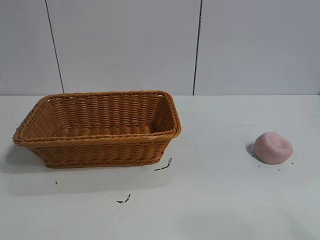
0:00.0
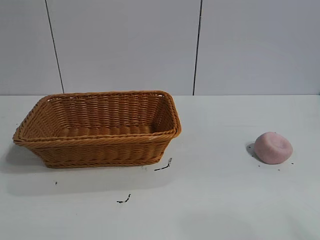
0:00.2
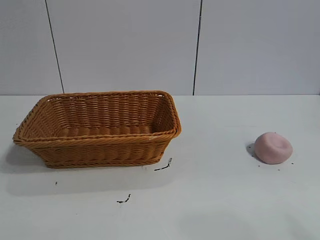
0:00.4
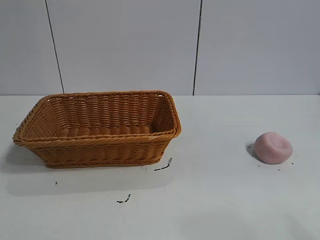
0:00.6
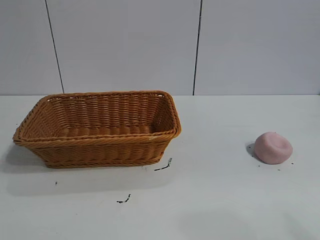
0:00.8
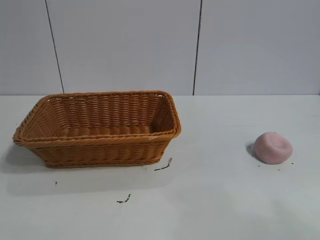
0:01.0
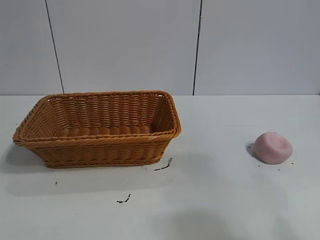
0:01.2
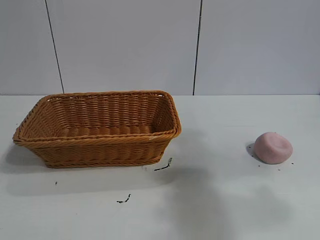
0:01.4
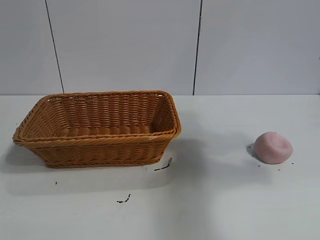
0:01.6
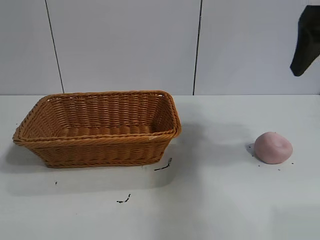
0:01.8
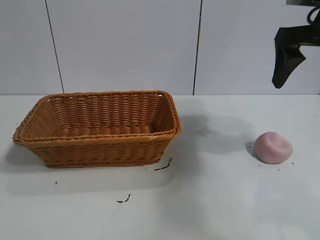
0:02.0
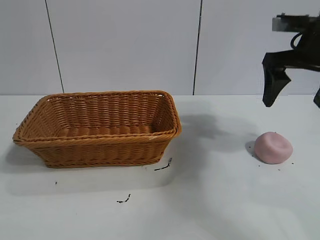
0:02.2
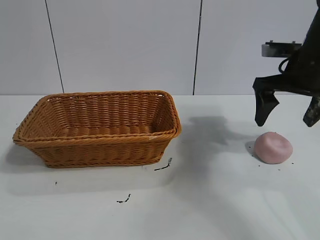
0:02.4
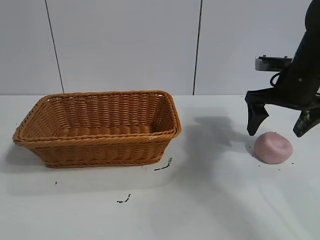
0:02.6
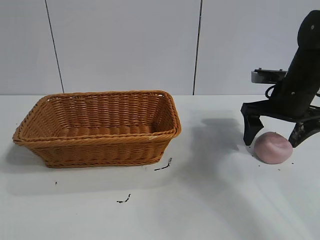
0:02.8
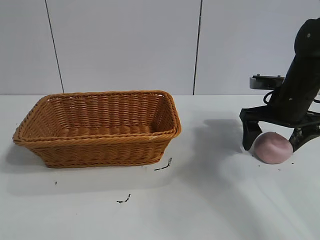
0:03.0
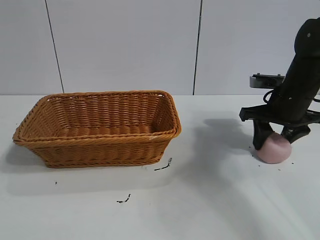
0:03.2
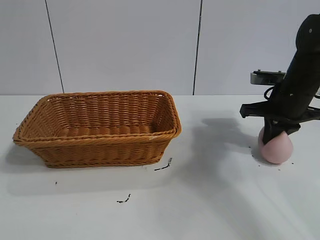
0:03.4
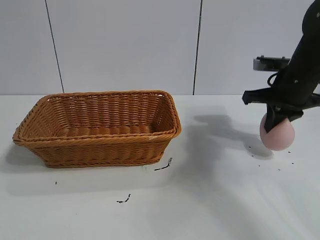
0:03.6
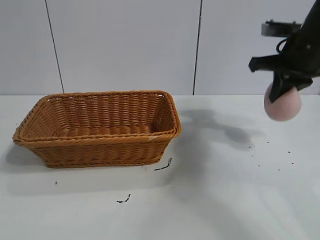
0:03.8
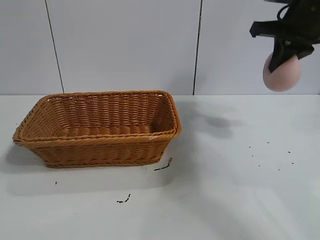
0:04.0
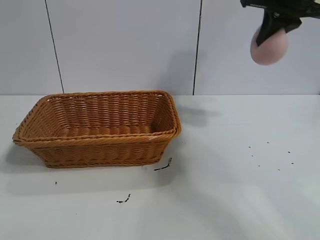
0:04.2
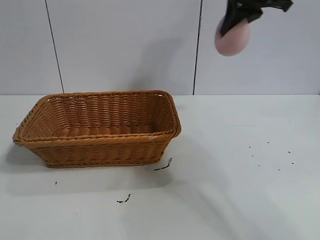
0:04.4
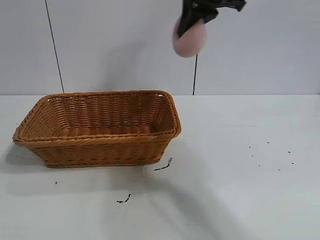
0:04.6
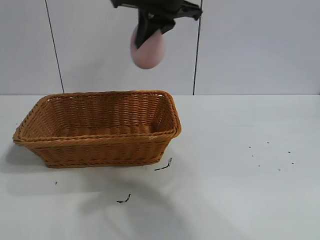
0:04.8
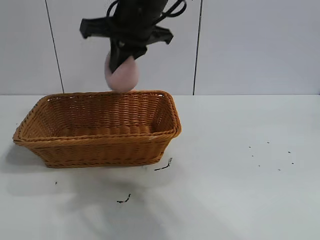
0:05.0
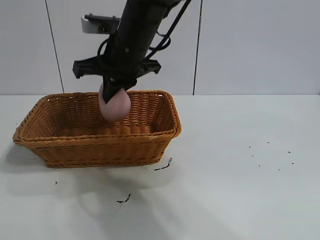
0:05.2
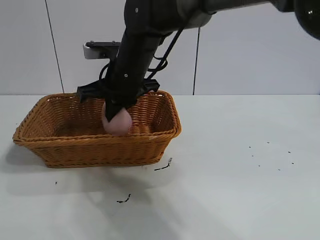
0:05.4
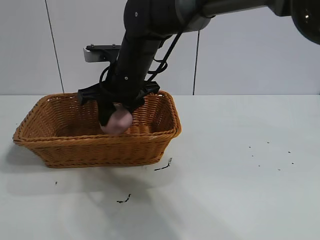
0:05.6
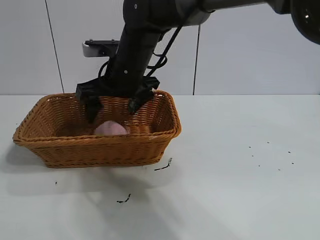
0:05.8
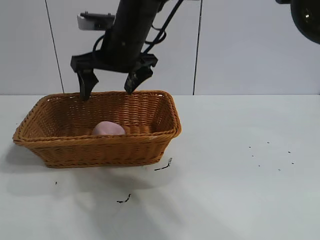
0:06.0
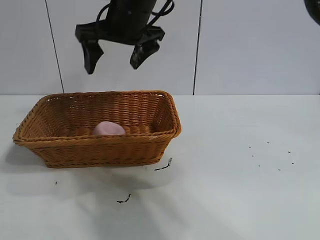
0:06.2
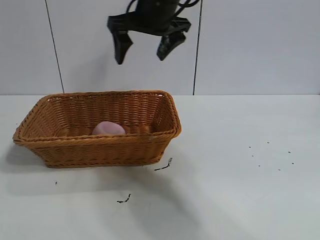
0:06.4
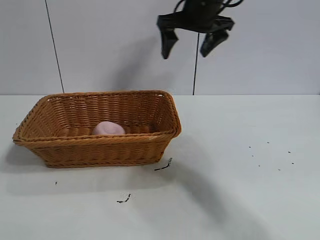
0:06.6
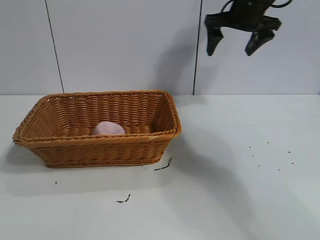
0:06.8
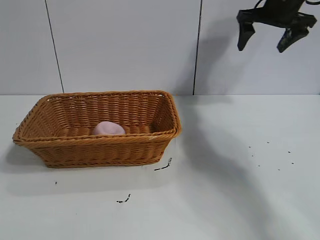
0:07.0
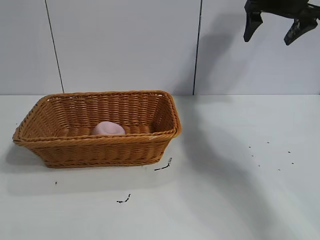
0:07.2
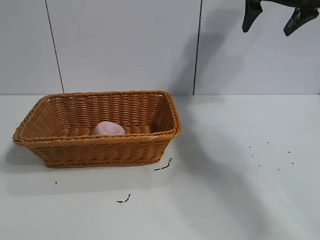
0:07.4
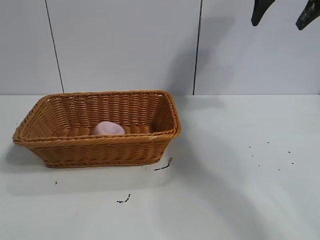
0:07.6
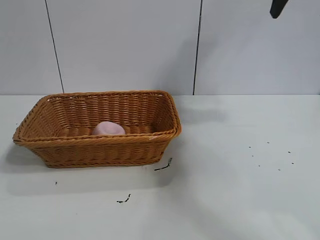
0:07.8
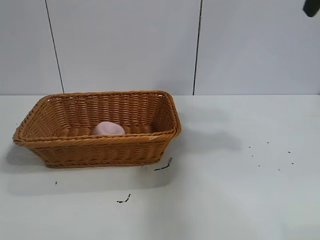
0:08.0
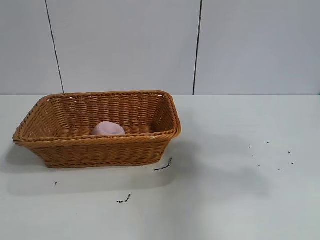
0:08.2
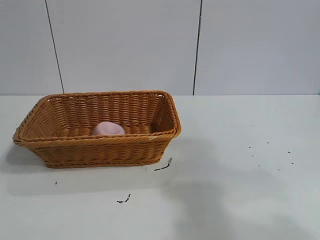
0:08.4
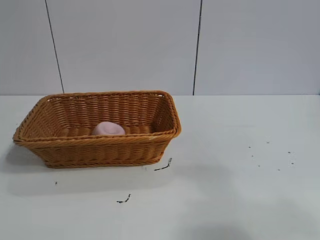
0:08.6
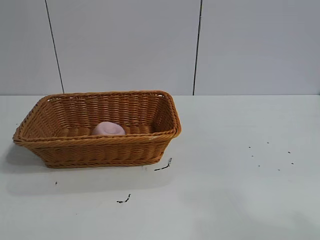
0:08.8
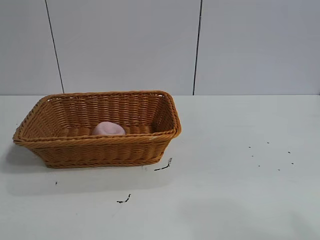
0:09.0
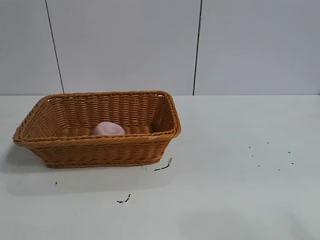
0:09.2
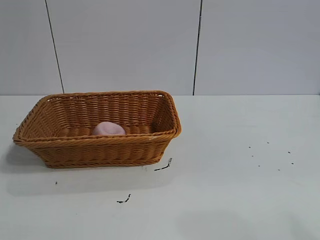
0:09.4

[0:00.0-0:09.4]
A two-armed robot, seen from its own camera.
Task of the whole recording: pick up the peach and put it into the basket.
Step, 0:00.8 to 0:03.2: Grasp the peach with right gripper.
Step, 0:03.6 to 0:05.6: Place the peach in the basket with right gripper.

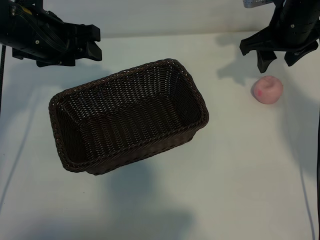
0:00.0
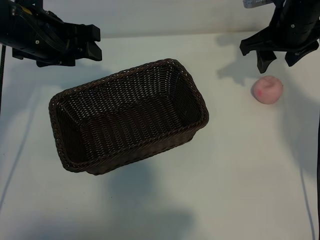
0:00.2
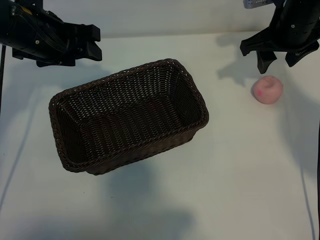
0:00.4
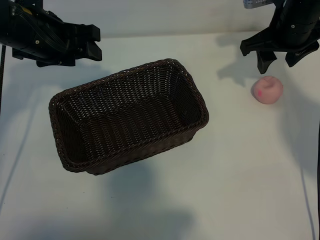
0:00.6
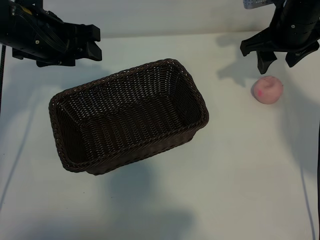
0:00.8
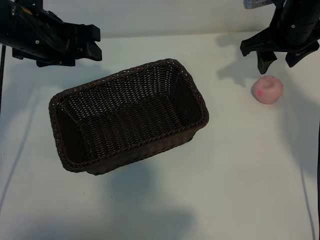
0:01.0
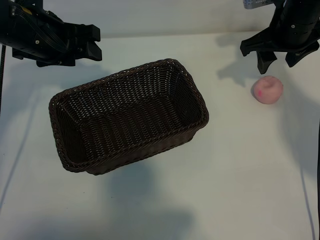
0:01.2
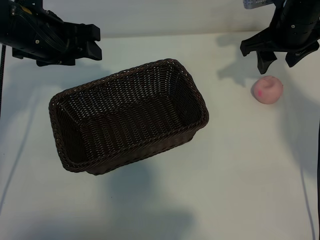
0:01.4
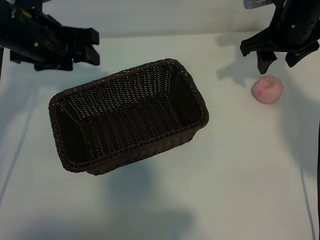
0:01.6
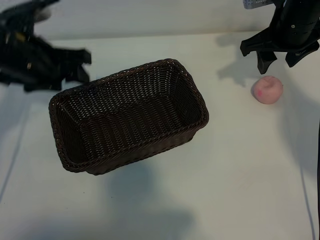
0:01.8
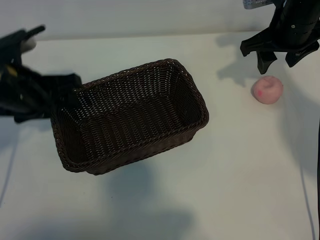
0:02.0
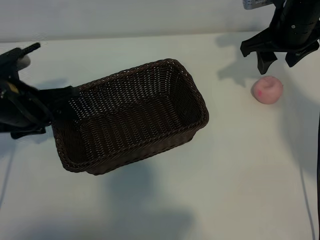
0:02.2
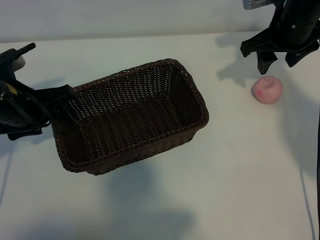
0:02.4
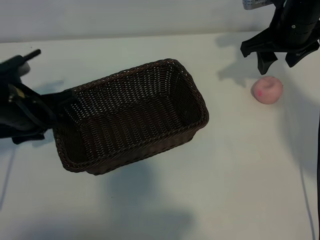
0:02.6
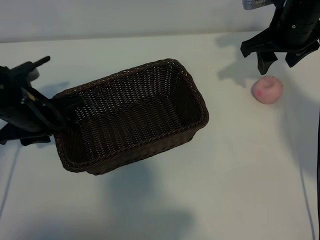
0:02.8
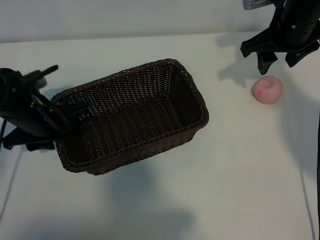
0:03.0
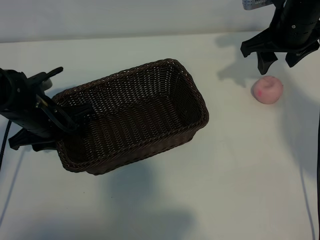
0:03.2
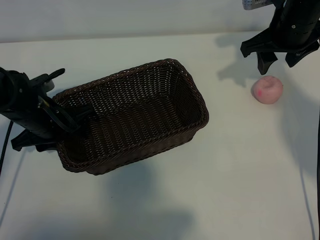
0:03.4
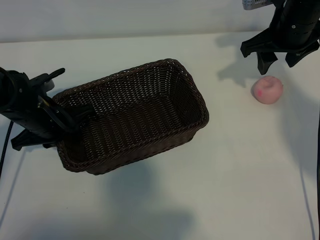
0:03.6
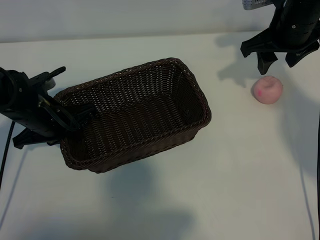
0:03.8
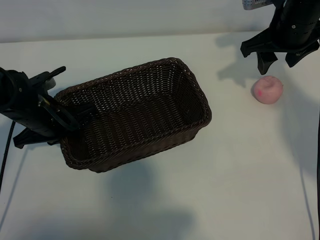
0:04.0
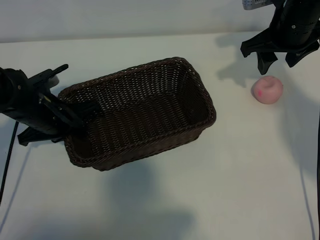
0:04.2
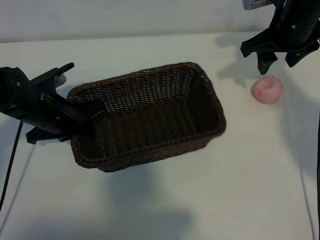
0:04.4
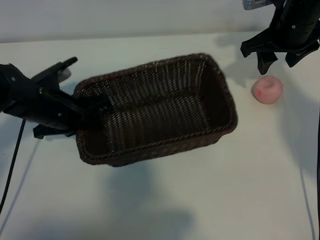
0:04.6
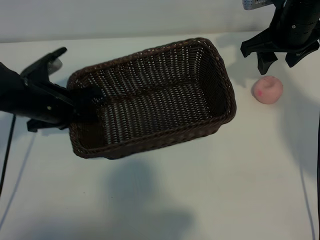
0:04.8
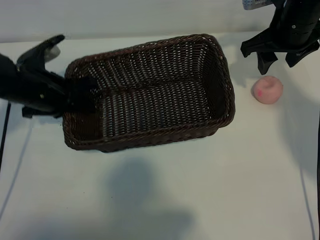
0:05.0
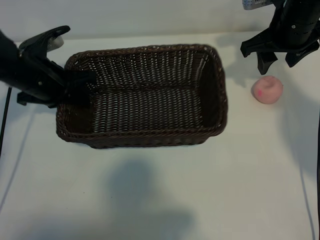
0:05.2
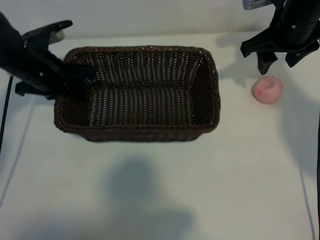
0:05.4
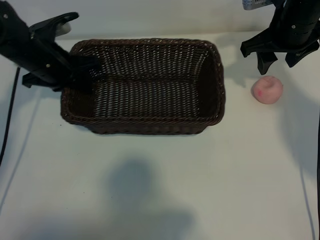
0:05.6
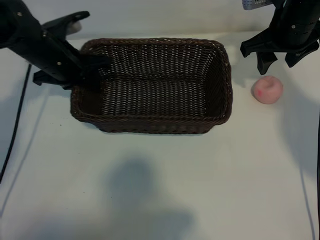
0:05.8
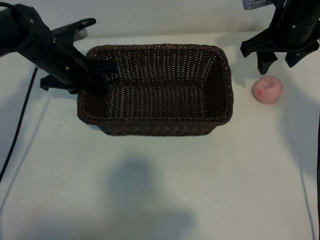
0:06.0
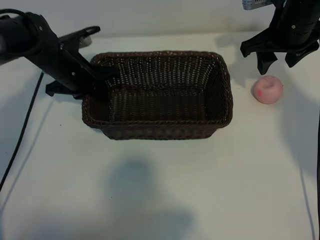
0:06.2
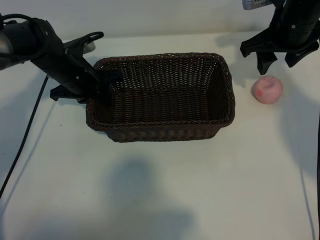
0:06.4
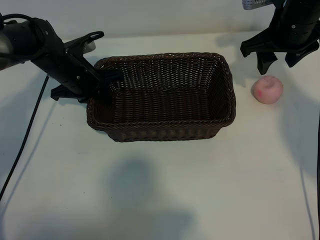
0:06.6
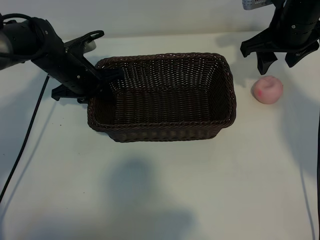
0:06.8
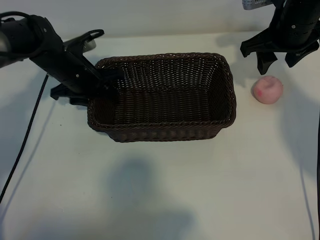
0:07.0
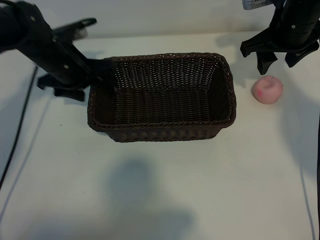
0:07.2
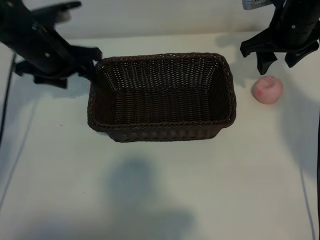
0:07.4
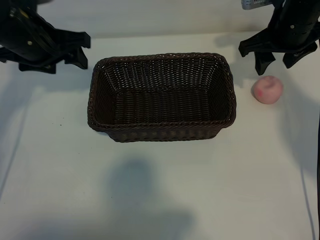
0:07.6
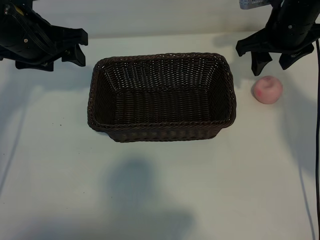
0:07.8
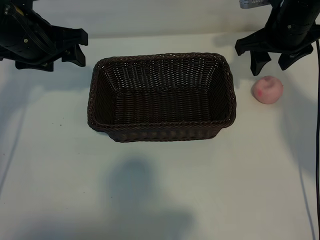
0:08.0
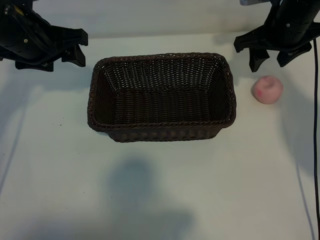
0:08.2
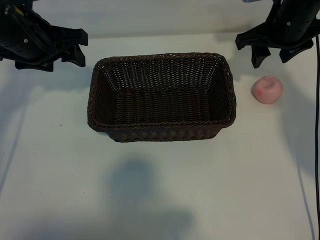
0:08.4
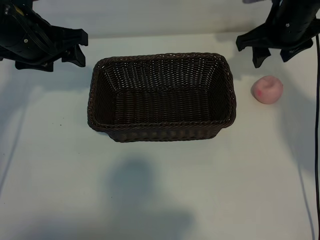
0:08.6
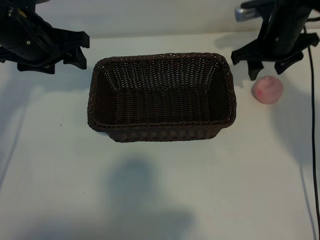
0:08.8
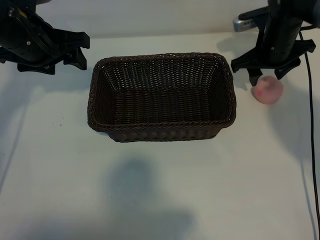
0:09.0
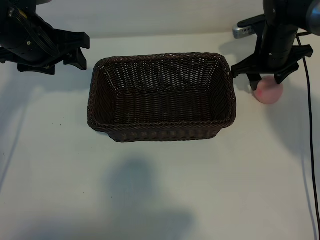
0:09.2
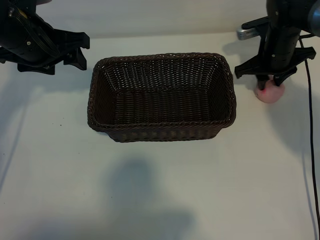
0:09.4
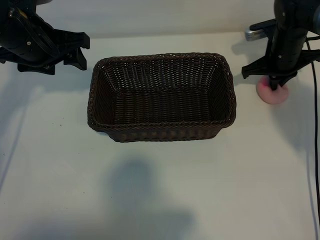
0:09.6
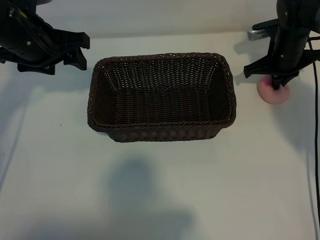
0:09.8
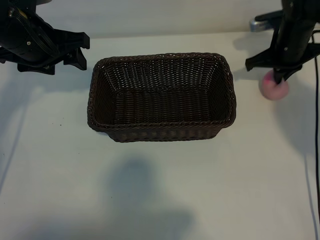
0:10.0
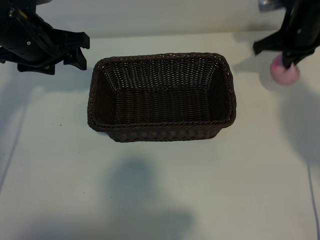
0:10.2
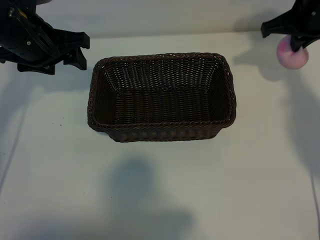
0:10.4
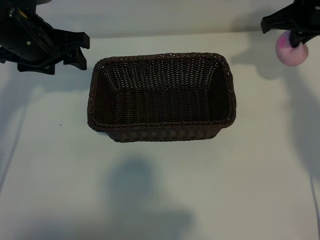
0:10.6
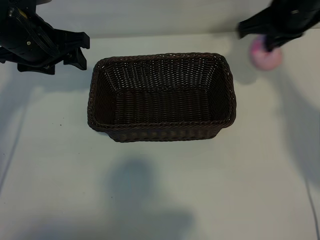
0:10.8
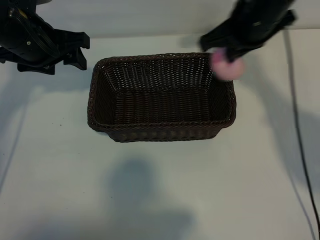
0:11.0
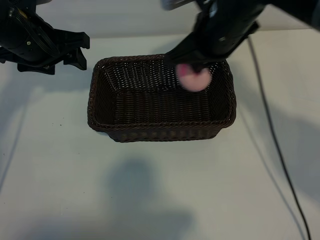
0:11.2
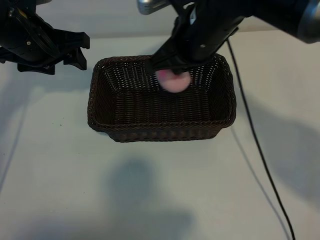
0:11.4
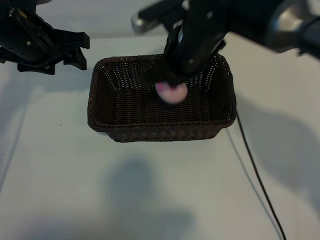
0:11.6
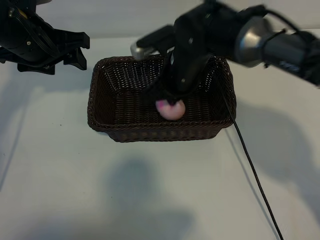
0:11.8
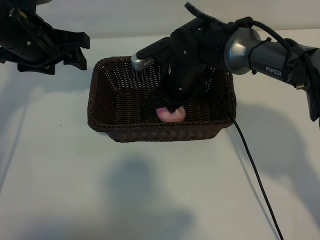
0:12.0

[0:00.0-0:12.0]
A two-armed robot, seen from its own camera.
Task of the whole recording: pick up the peach and put it into the basket.
Step, 0:01.6 to 0:03.8: Grasp the basket with left gripper.
Step, 0:04.0 to 0:07.0: Place the basket in the center of view with left gripper.
Step, 0:07.2 to 0:09.6: Grasp the peach with right gripper.
